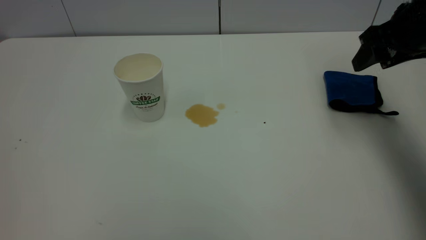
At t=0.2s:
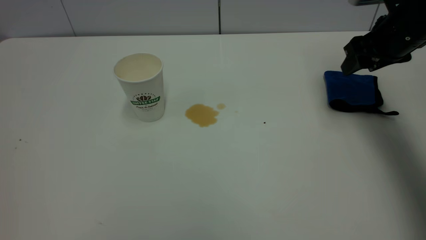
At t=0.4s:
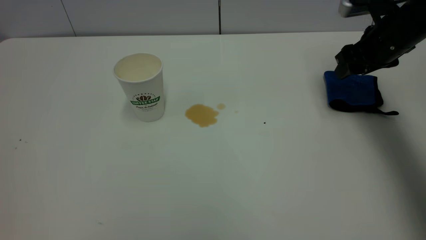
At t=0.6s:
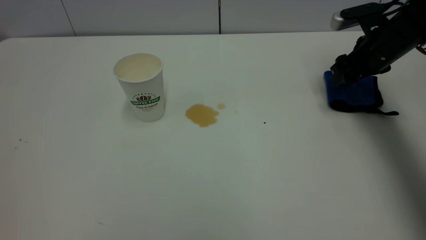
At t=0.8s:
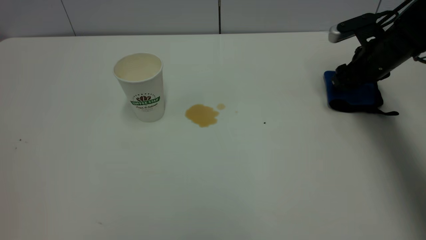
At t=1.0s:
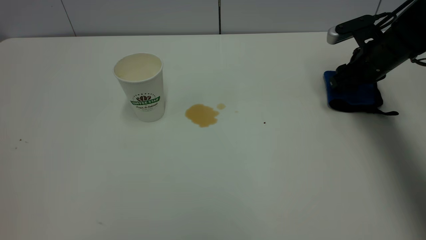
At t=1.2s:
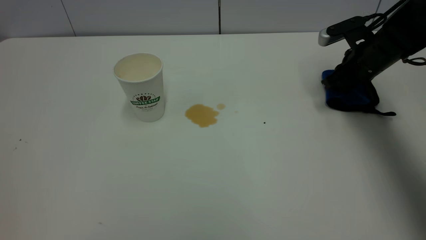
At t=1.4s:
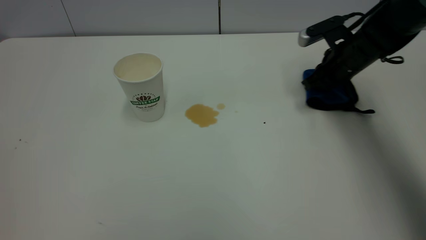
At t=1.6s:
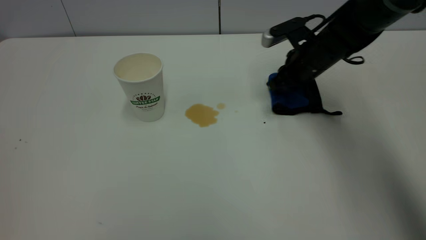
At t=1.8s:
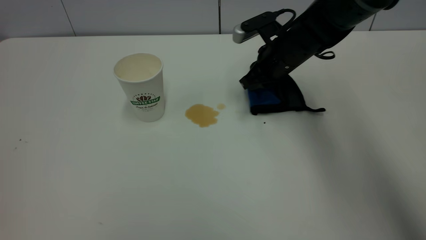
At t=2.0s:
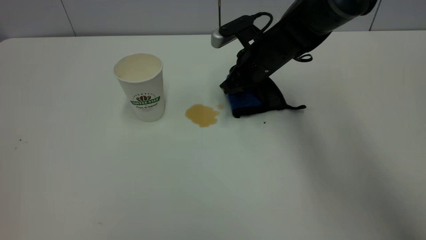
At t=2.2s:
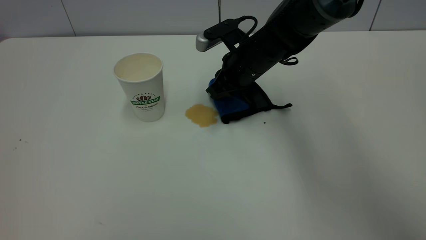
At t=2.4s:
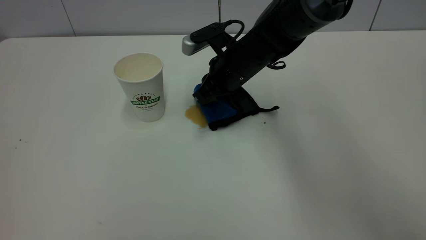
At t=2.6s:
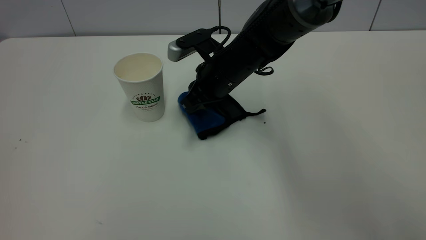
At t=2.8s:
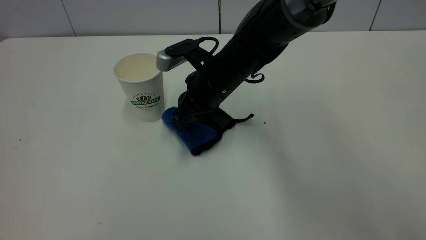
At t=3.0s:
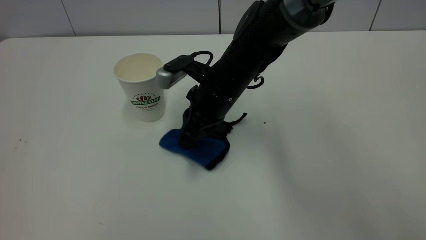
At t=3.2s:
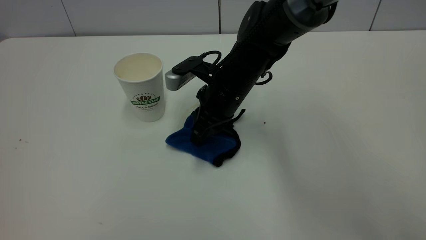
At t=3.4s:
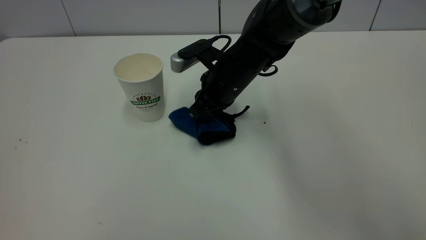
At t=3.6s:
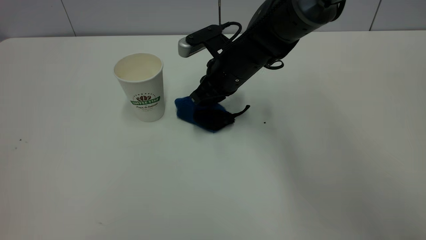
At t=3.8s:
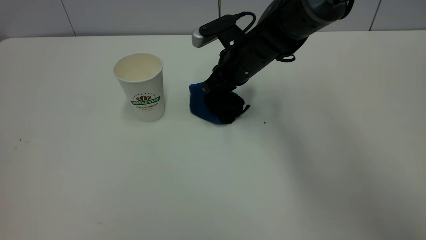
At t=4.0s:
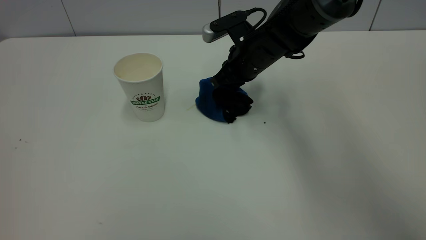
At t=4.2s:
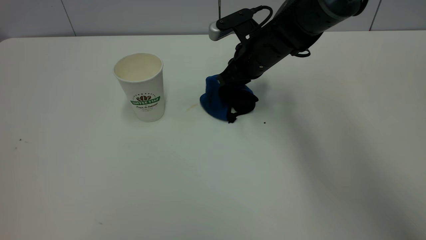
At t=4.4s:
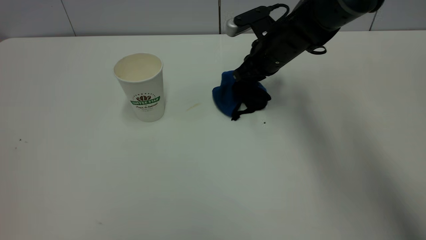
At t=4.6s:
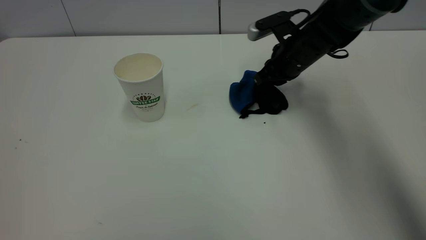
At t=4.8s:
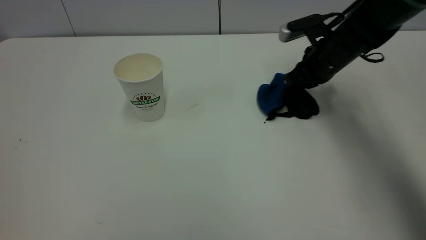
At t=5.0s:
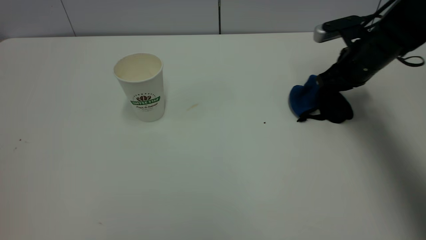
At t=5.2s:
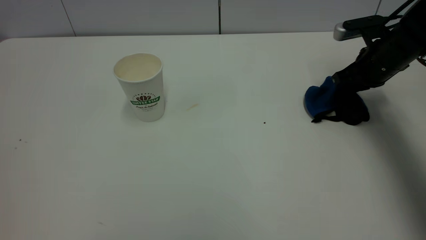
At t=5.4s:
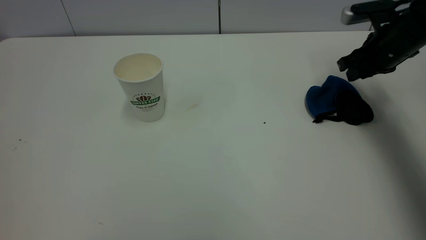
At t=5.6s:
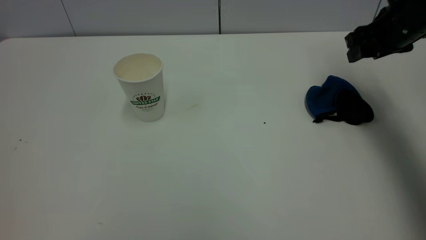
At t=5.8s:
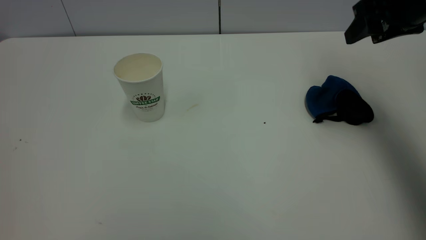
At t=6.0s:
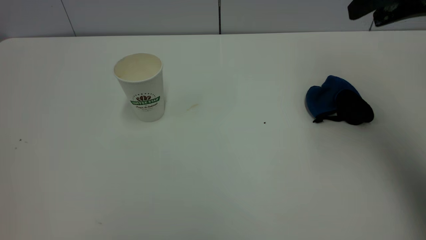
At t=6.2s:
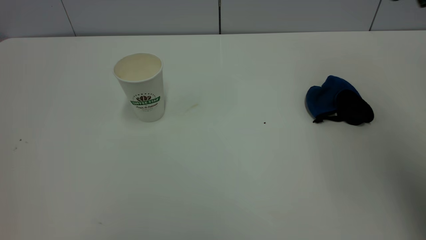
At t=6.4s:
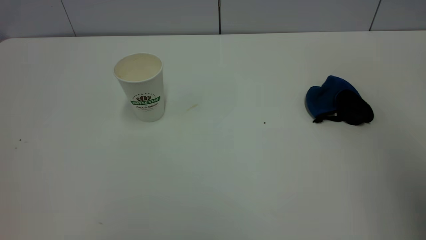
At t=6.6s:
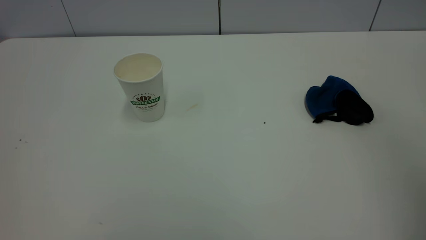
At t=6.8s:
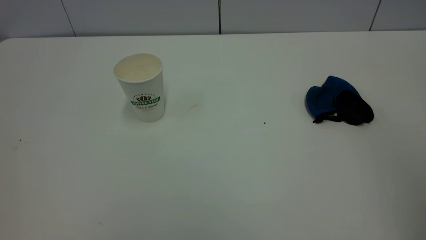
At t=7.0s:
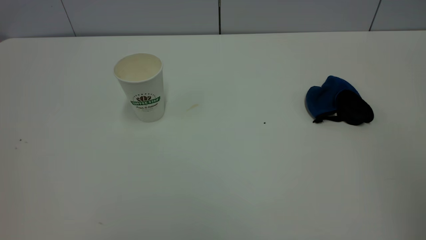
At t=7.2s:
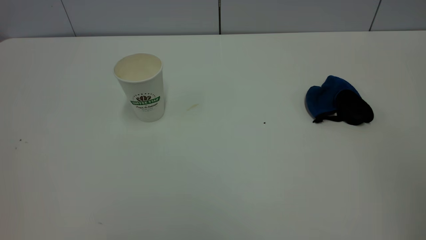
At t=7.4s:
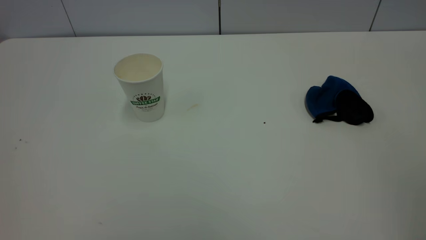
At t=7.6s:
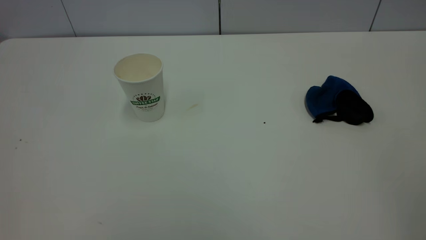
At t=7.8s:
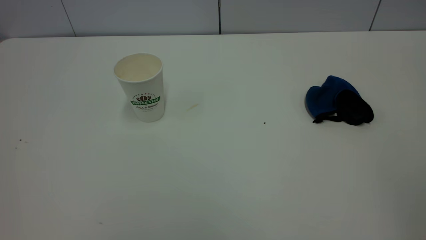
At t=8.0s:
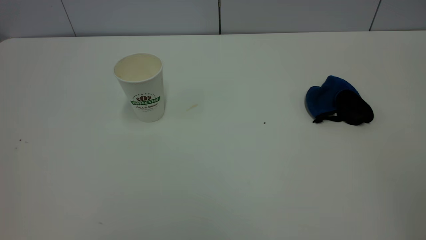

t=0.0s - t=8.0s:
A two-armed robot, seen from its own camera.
Task of the whole recording: the left gripper pick up the fallen cup and place it upright, the right gripper grasp the blue rag and wipe the tea stain on the table, the right gripper put the blue rag back in its original position.
Step, t=0.0s - t=5.4s: Wipe the stains off the table with a rag.
t=0.0s - t=1.6s: The right gripper shifts roughly 20 cm to the left, downward and forward, and closes its fingers.
t=1.6s - t=3.2s: The right gripper goes roughly 15 cm to the left.
t=3.2s - t=4.8s: The right gripper shifts roughly 20 cm to the right.
t=4.8s - t=6.4s: The right gripper heads backward and upward, covering about 40 cm, and opens up.

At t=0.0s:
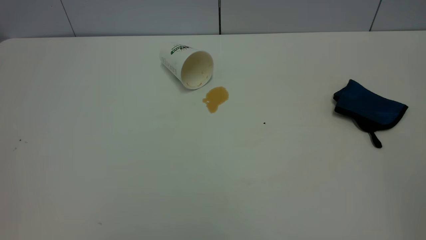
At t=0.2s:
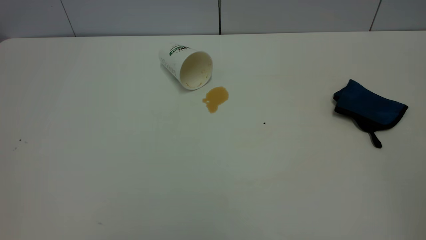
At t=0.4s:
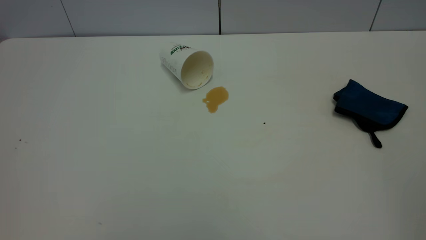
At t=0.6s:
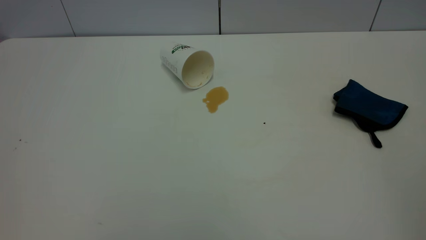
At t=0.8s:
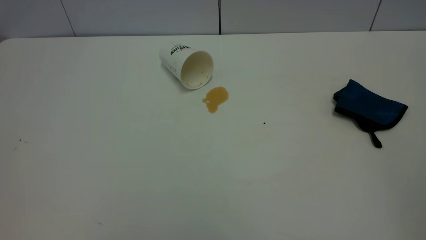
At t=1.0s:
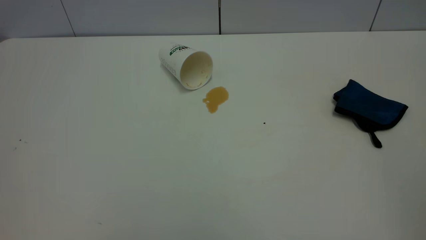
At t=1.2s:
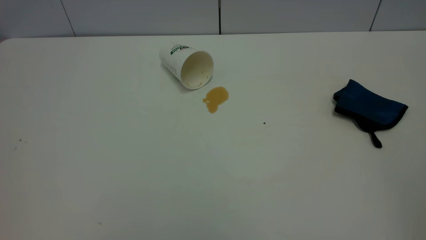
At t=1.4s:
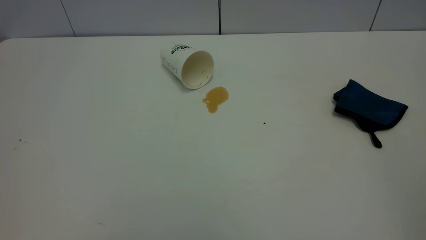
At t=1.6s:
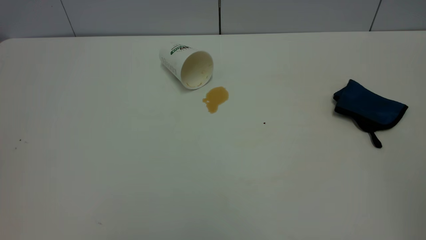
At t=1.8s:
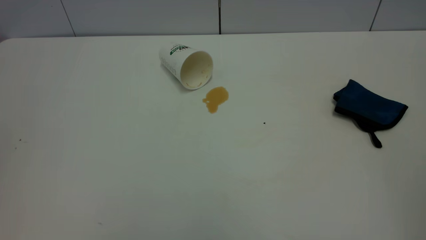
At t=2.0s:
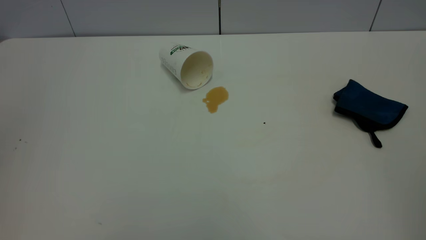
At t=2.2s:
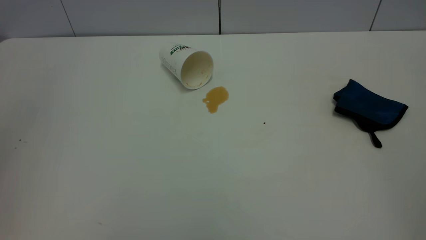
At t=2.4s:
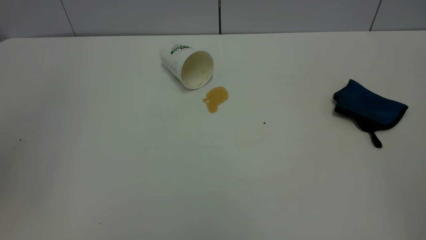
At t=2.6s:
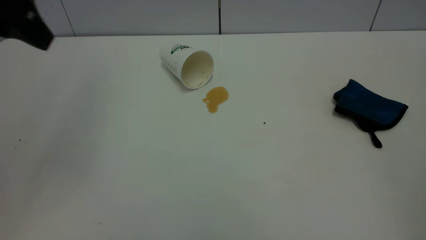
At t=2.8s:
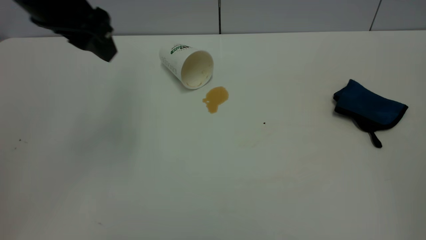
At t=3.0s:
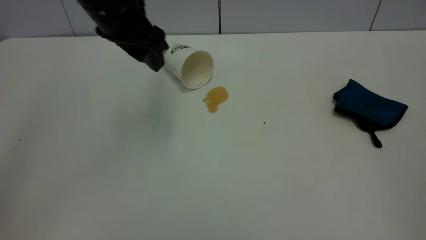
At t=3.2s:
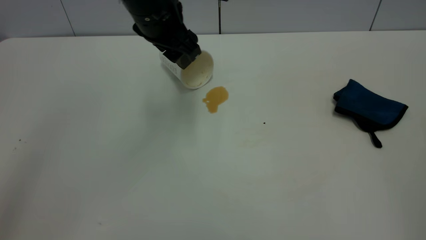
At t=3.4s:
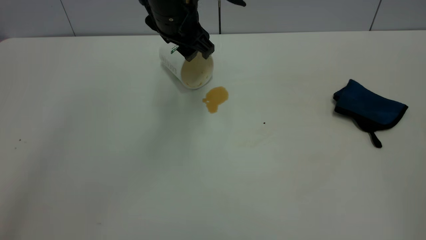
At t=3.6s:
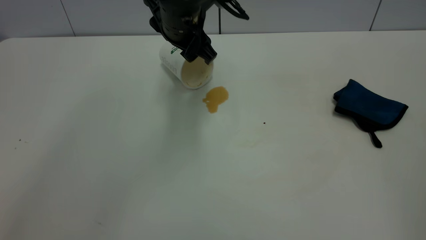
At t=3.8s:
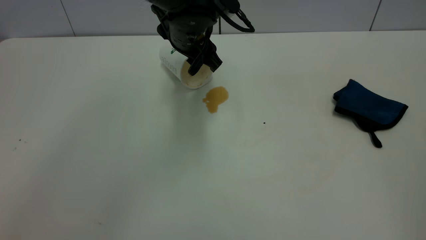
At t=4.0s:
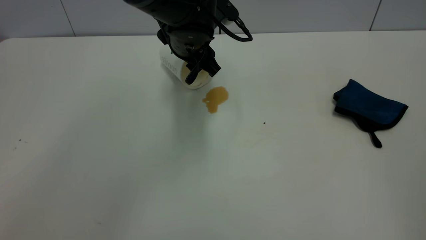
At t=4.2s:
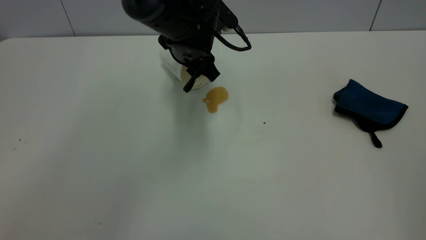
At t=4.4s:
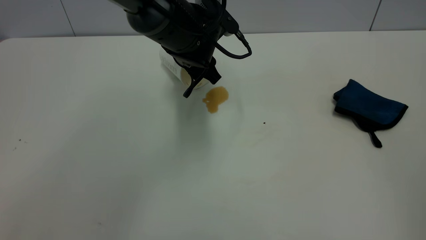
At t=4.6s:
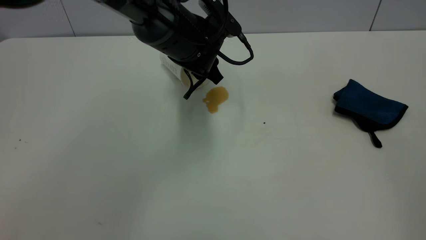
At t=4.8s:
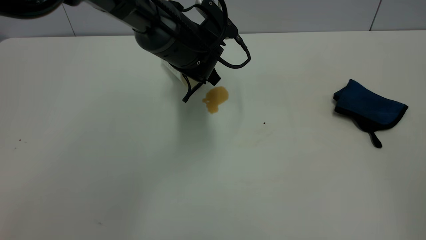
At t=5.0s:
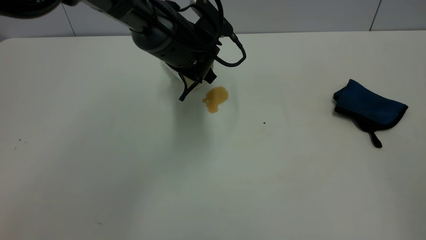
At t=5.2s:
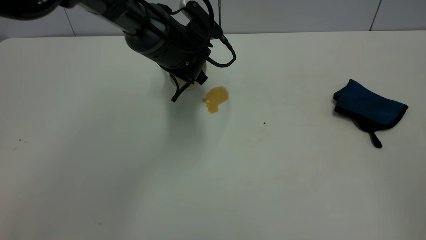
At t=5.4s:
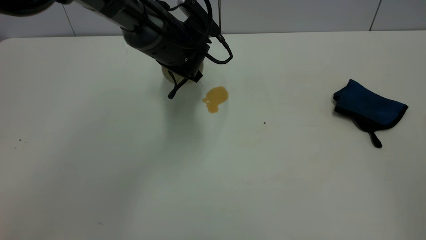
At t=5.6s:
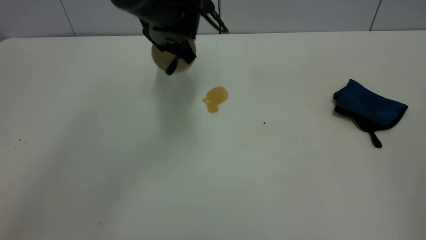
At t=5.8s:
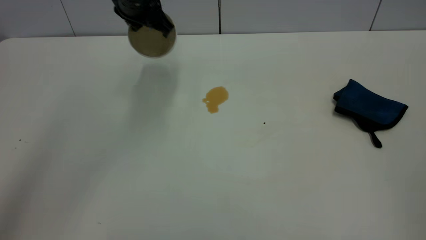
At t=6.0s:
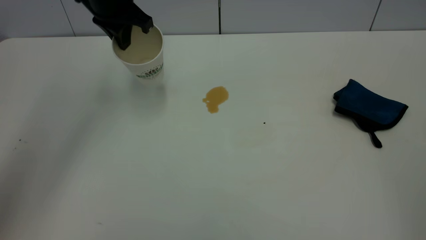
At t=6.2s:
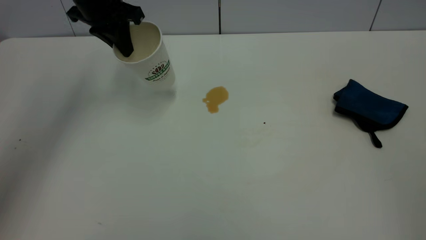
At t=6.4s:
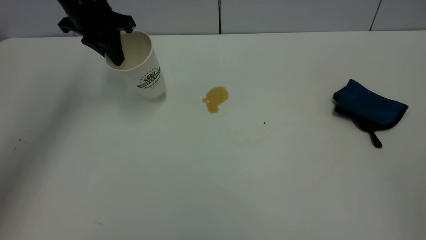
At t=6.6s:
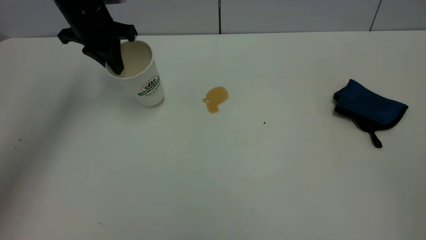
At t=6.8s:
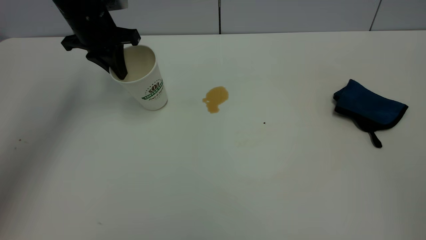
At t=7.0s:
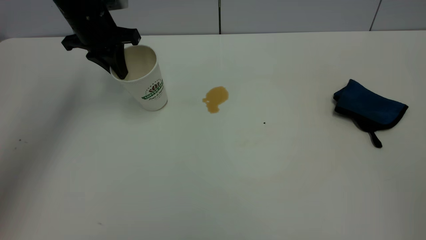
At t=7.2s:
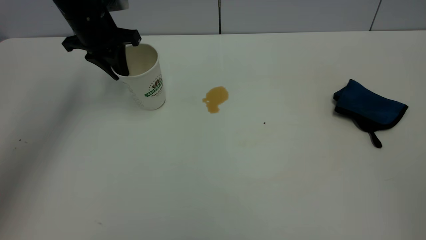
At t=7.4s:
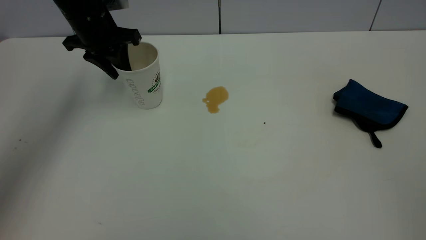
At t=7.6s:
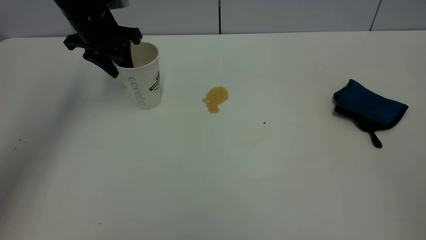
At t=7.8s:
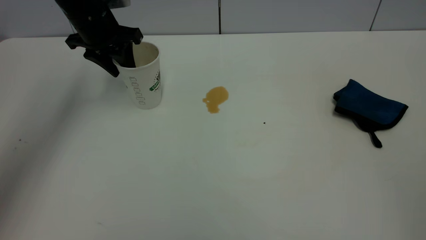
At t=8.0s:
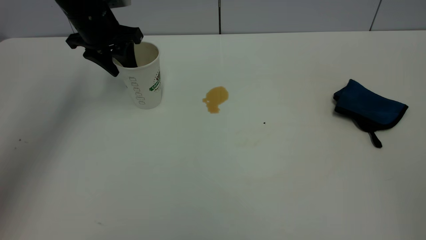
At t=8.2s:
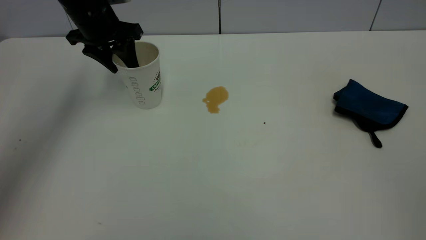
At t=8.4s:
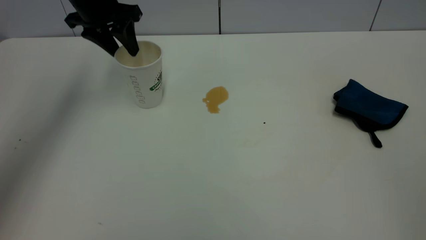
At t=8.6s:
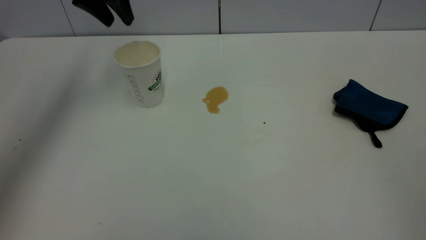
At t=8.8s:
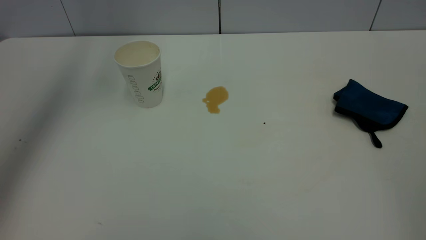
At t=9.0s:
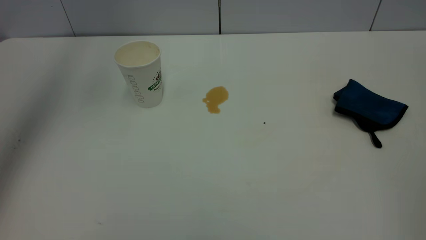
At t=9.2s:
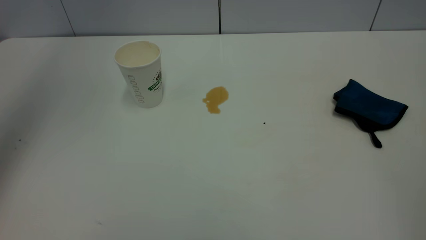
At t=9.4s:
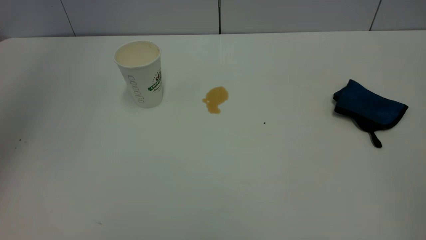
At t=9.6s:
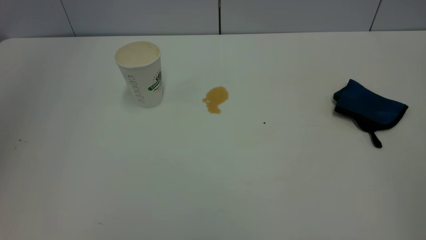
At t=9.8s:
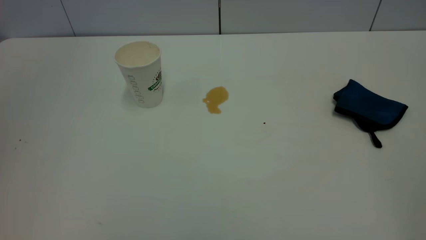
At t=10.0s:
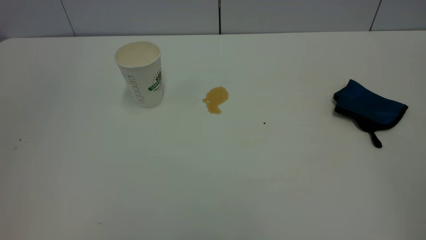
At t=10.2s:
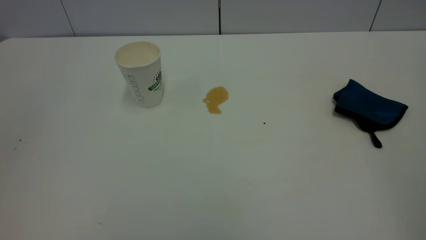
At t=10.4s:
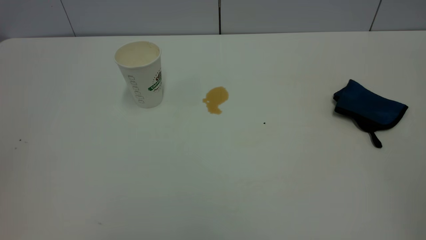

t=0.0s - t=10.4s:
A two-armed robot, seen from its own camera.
Task of the whole recording: the left gripper pick up the fallen cup and place it upright, the right gripper grasp the blue rag and wipe the tea stain on the table, the right gripper put the blue rag back in its original position.
Step, t=0.0s - t=8.4s: Stand the paper cup upright.
t=0.0s - t=1.4s: Both grippers stay about where they are.
t=1.4s - t=3.0s: The left gripper moves forward and to the right, roughly 40 cm.
t=3.0s - t=4.4s: The left gripper is displaced downward, to the right and forward by roughly 15 cm.
t=4.4s - t=6.0s: The left gripper heads to the left and upward, covering some 20 cm, and closes its fingers.
t=6.0s - t=7.4s: The left gripper ends up roughly 5 cm from where it was, and opens.
t=7.4s - t=9.0s: The left gripper goes approximately 25 cm upward.
t=9.0s - t=10.4s: The left gripper shifts roughly 35 cm backward.
